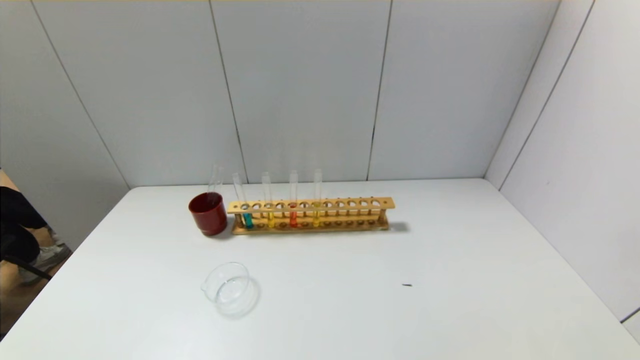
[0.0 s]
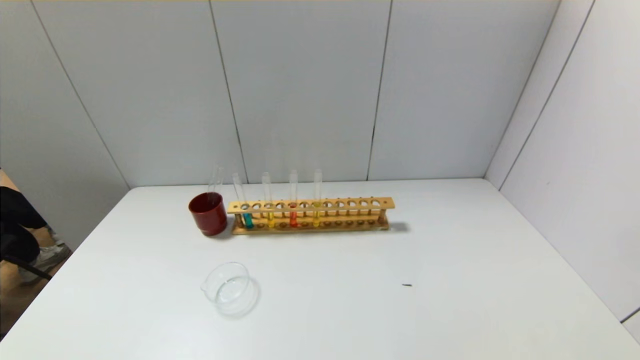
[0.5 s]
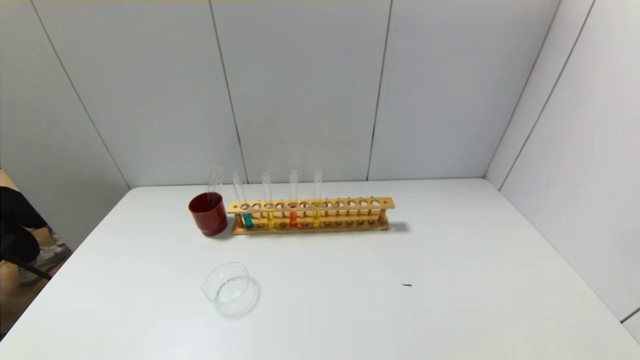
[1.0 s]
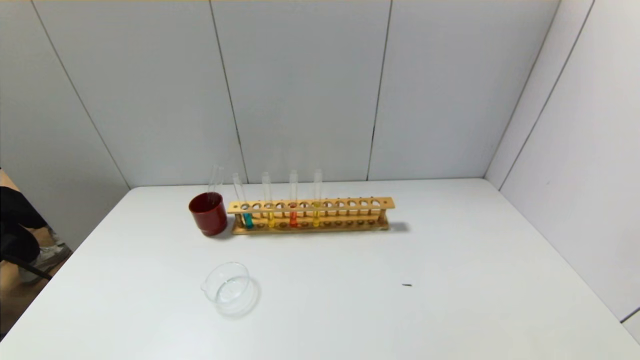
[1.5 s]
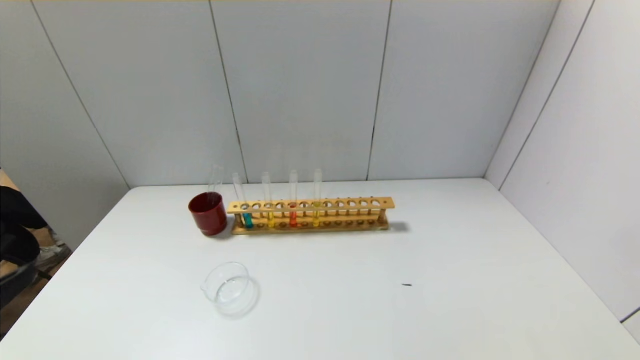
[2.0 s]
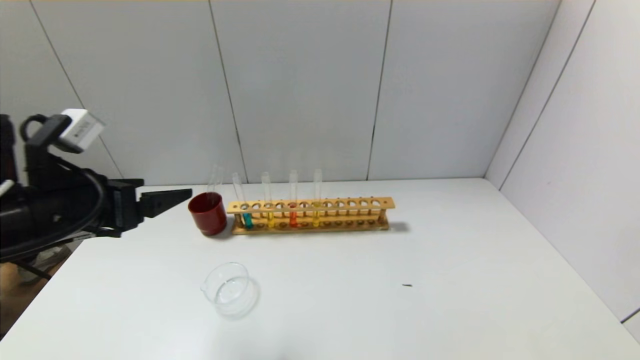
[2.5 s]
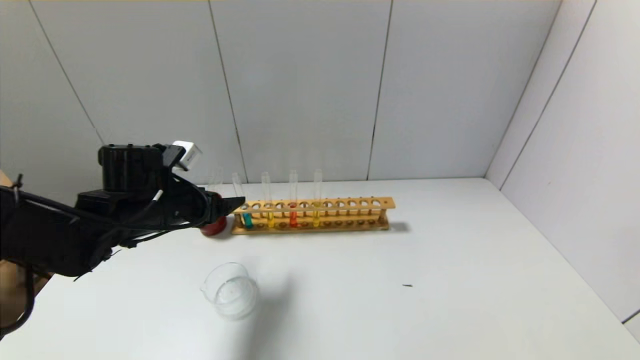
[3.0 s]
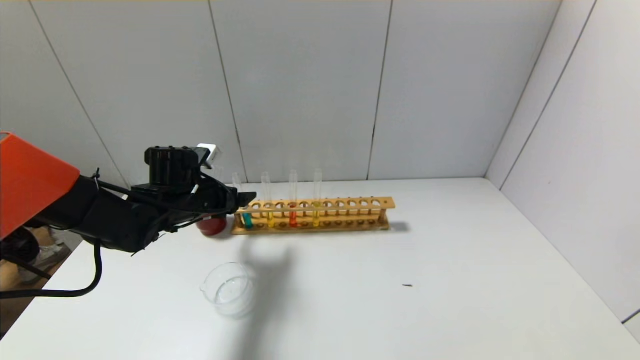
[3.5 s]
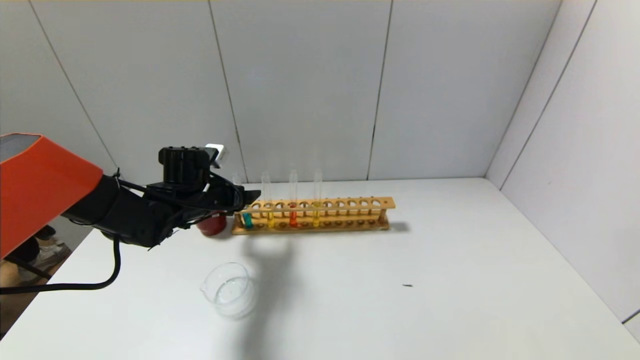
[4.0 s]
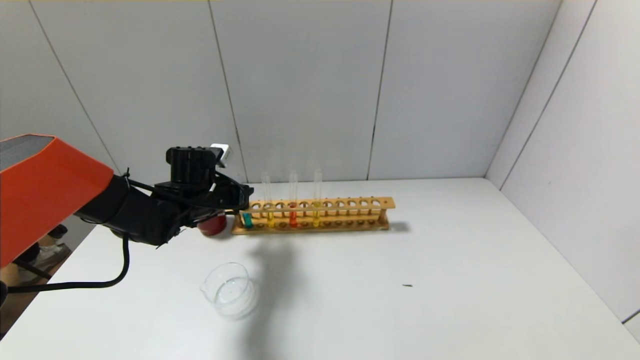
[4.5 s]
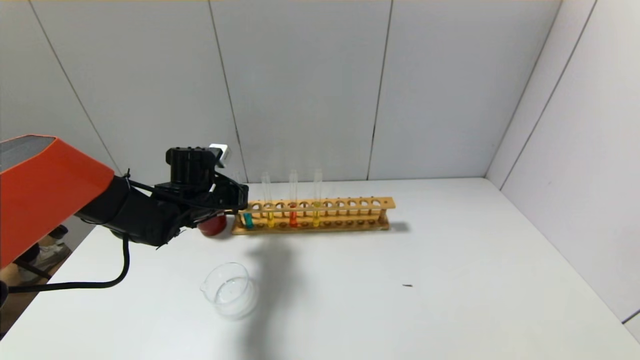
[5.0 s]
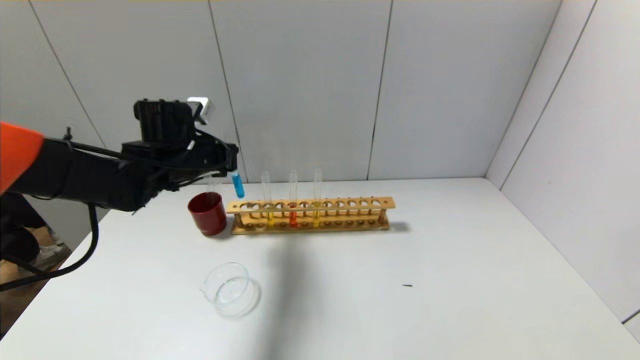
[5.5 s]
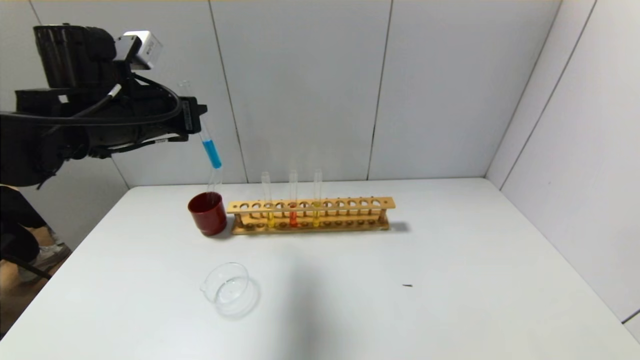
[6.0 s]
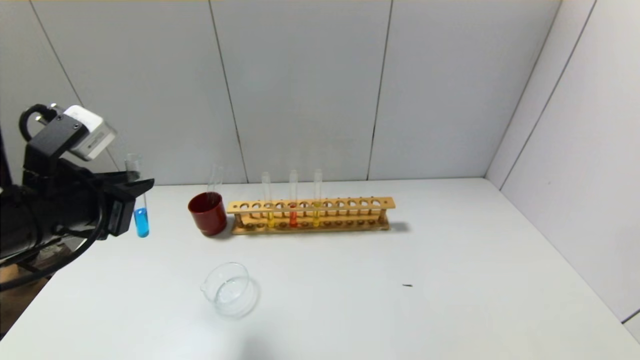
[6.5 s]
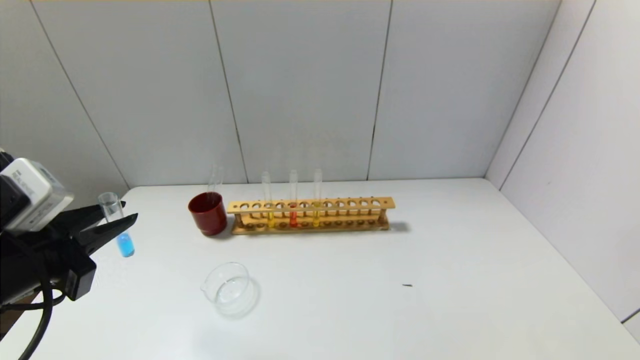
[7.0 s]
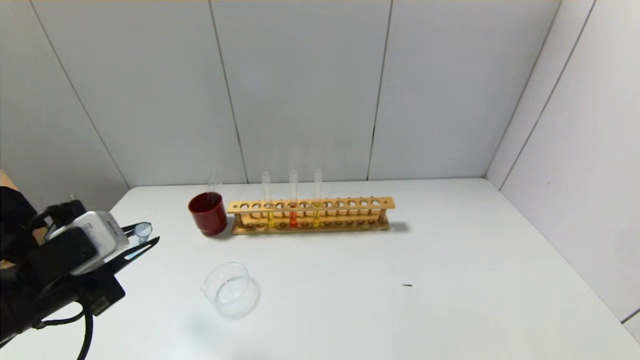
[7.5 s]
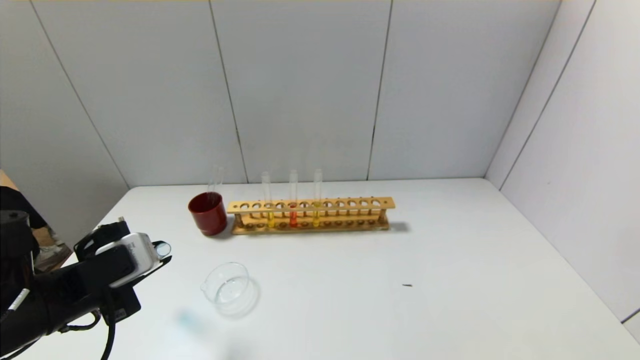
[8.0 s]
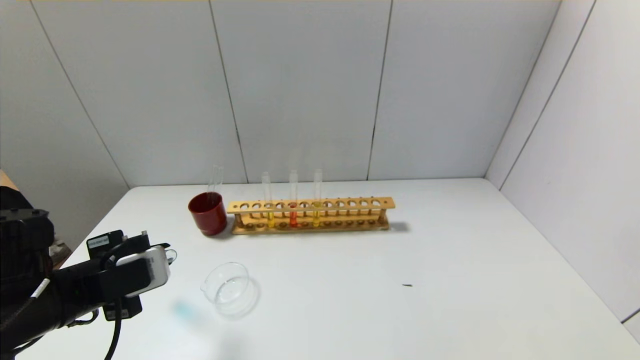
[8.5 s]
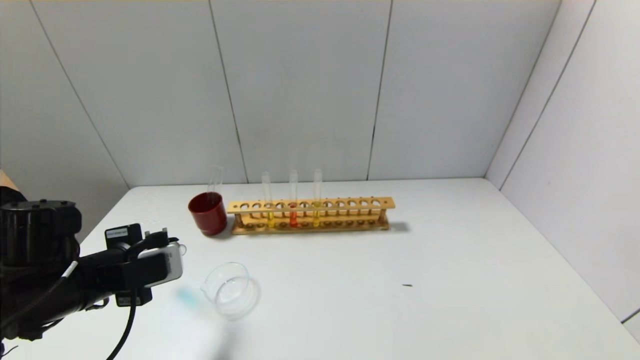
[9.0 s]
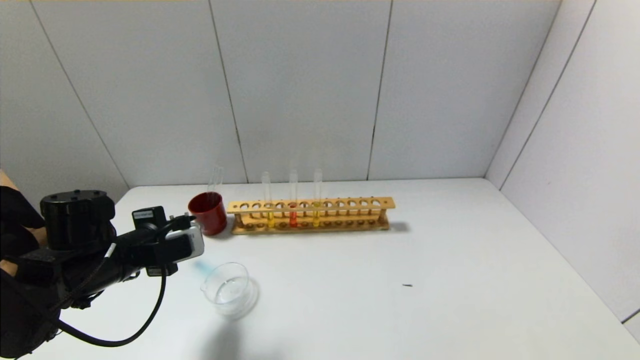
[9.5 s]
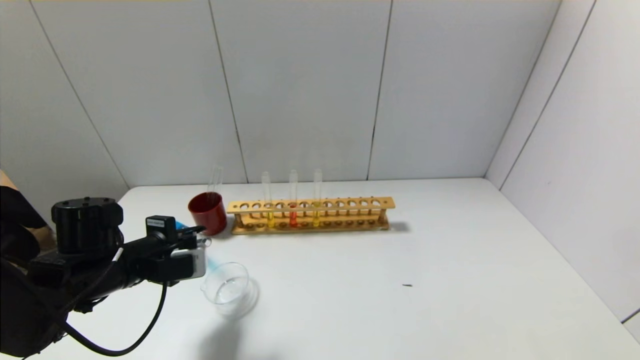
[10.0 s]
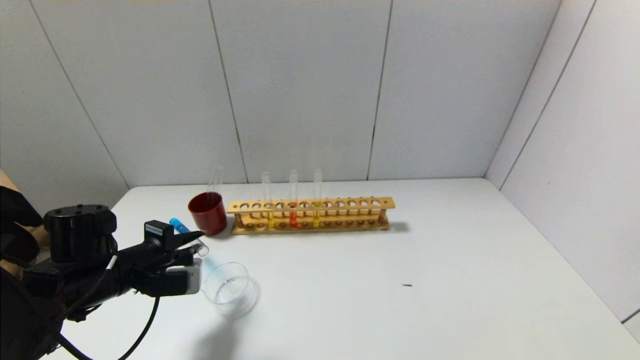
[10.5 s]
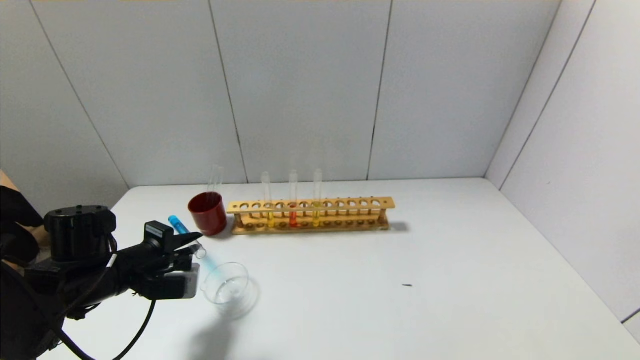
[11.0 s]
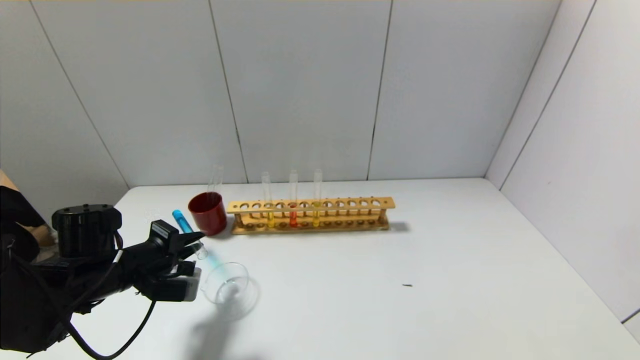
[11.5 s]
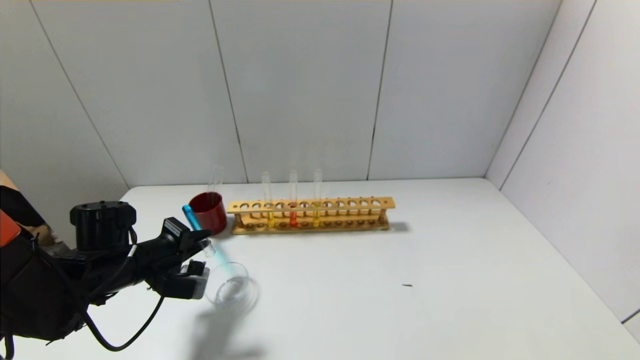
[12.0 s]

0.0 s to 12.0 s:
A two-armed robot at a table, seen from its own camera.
Step, 0.0 to 4.5 s: Grasp the blue reagent with the left gripper.
2.0 to 4.0 s: The left gripper travels forward by about 35 cm.
4.0 to 6.0 s: The left gripper travels upward by about 15 cm, and closes.
6.0 to 8.0 s: The left gripper shifts some 20 cm backward and downward.
8.0 to 10.0 s: The left gripper shifts approximately 10 cm forward.

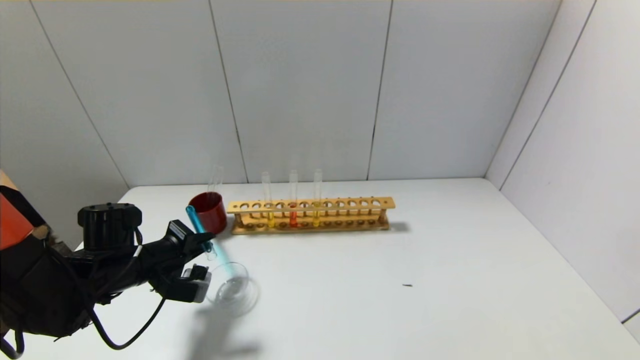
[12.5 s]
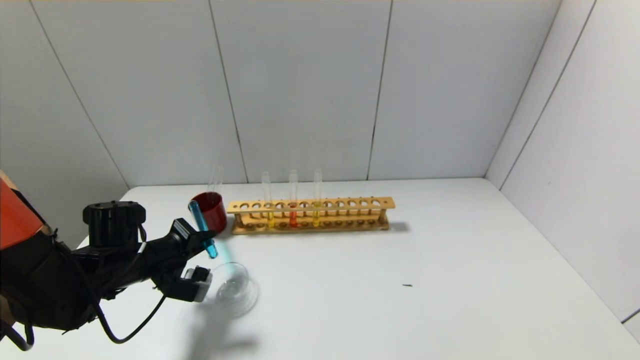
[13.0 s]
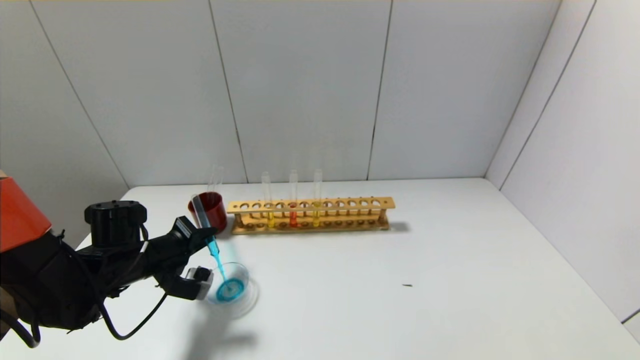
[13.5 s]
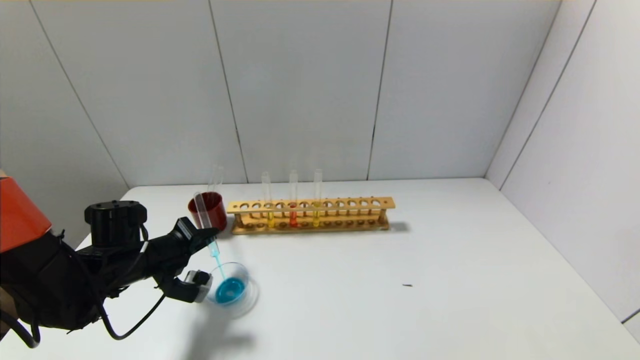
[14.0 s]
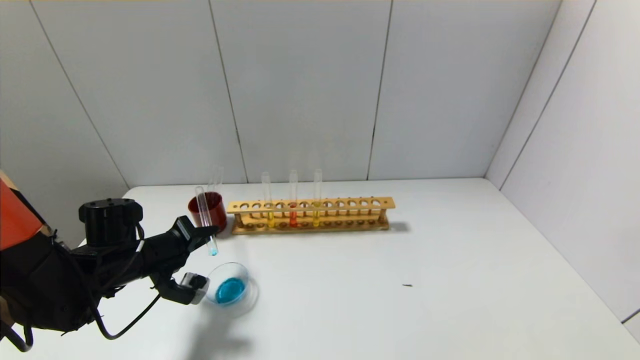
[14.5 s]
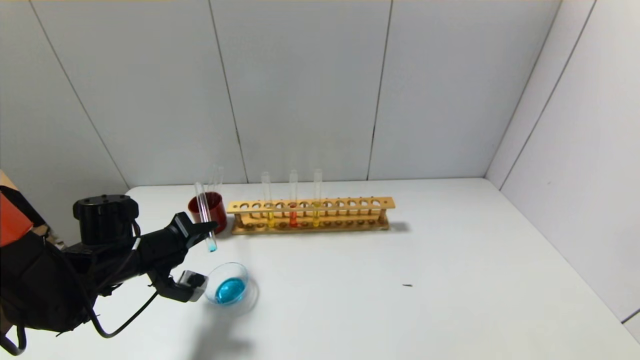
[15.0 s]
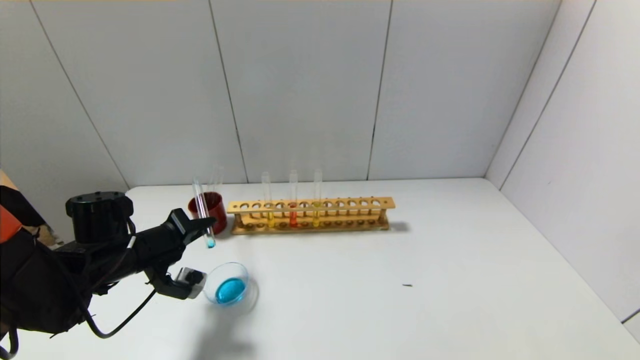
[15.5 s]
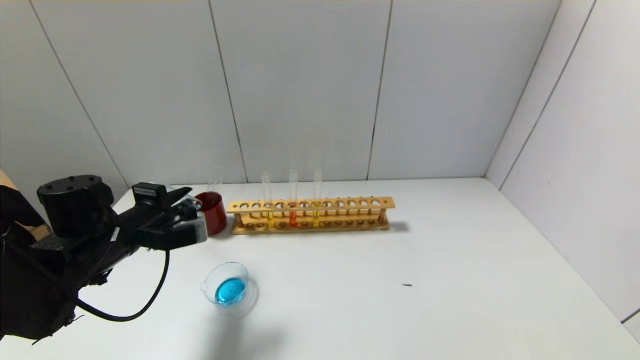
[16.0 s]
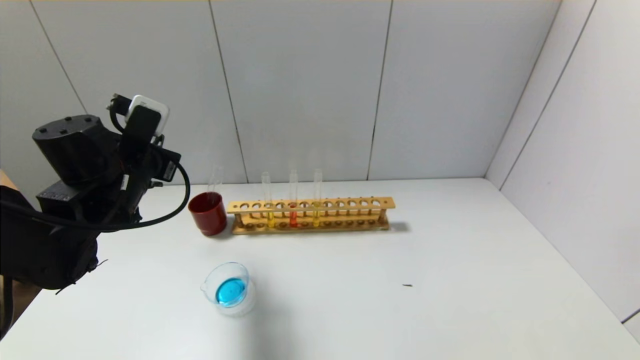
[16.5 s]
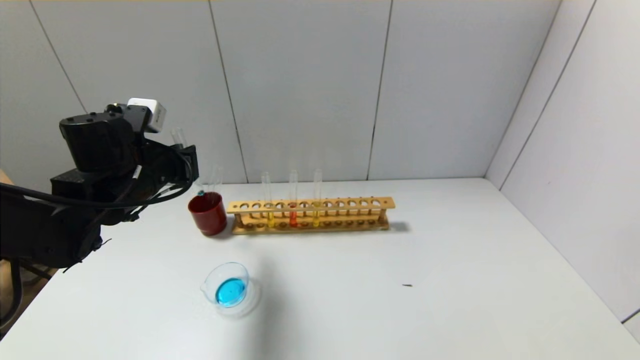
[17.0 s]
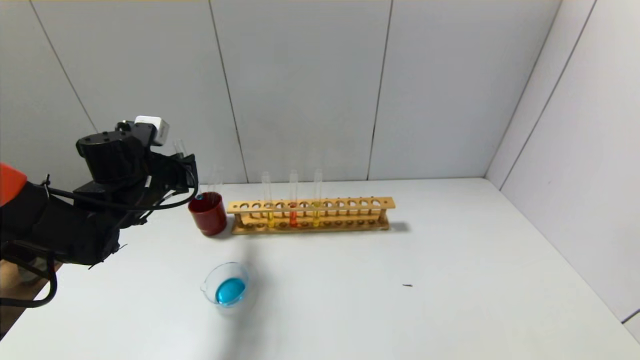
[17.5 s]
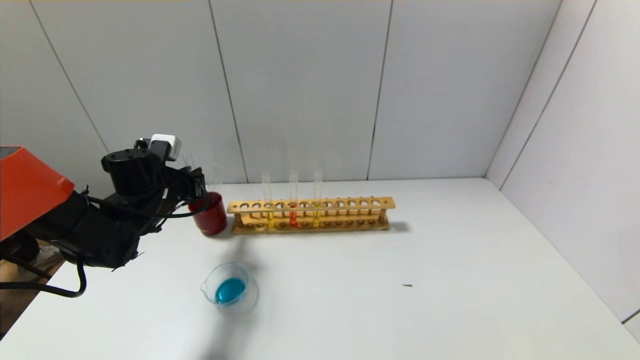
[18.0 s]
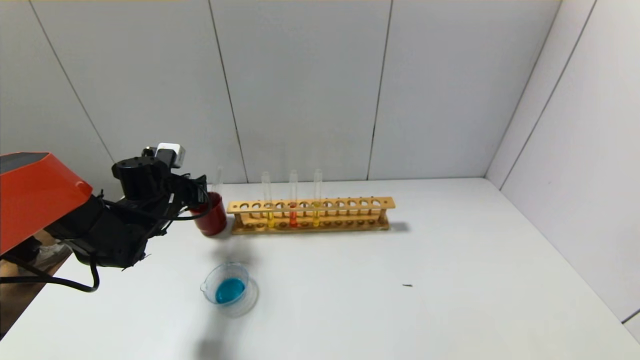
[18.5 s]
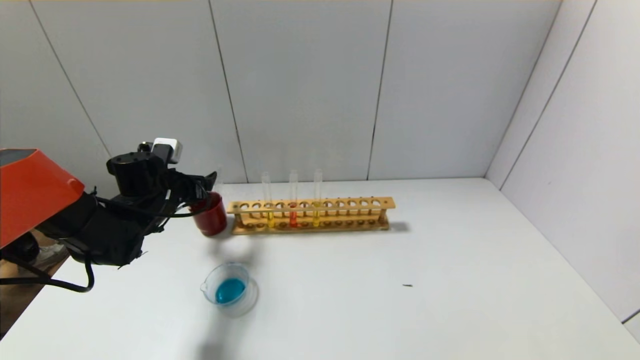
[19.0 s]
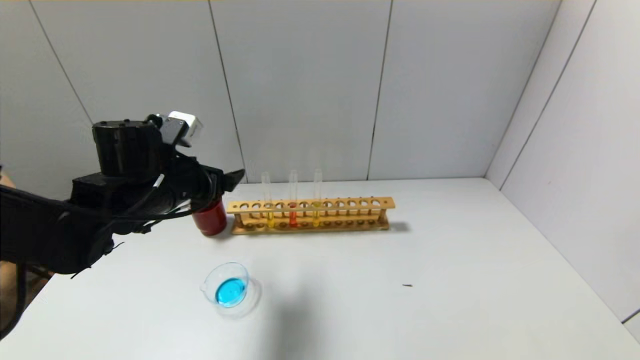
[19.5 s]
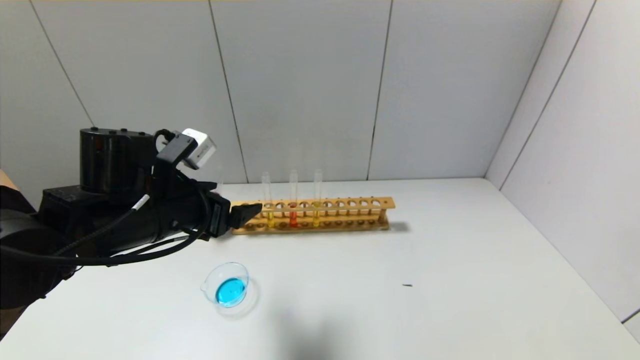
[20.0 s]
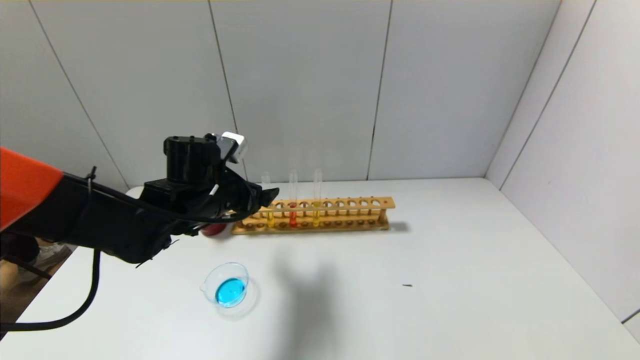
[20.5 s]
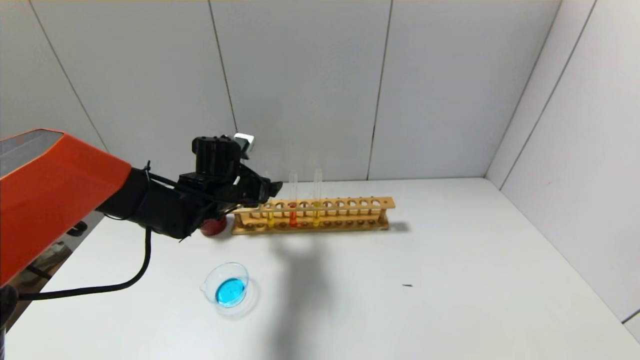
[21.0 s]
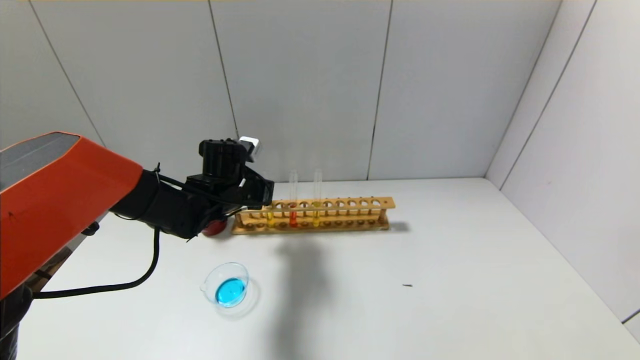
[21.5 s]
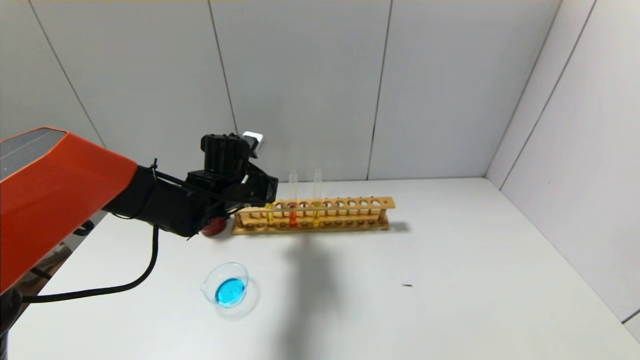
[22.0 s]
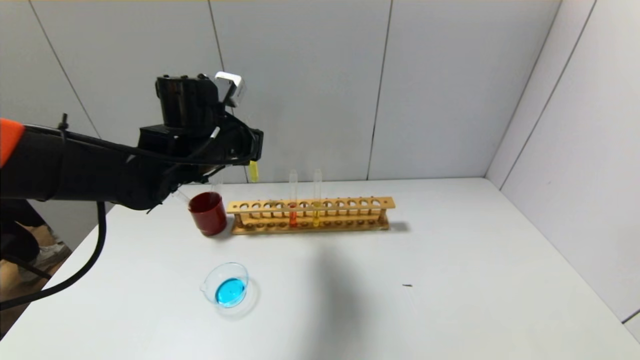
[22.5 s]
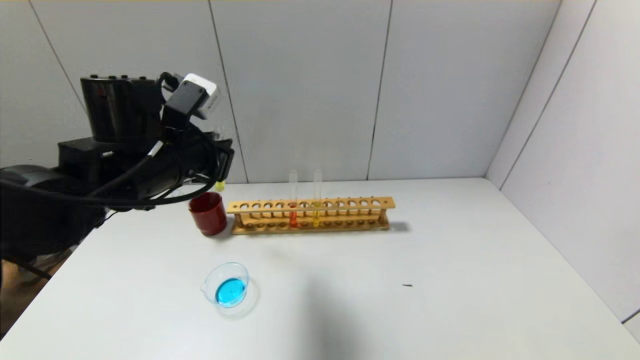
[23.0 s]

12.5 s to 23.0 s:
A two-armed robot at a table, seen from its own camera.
Step, 12.5 to 15.5 s: Pour the blue reagent into the graduated cylinder with the left gripper.
Step, 16.0 to 18.5 s: Place the test tube into the brown cup with the left gripper.
Step, 19.0 to 21.5 s: Grasp the yellow reagent with the left gripper.
12.5 to 14.5 s: There are only small adjustments of the grippers.
14.5 to 16.5 s: The left gripper moves upward, approximately 15 cm.
16.5 to 19.0 s: The left gripper shifts about 10 cm downward and forward, and opens its fingers.
19.0 to 21.0 s: The left gripper travels to the right by about 10 cm, and goes backward and returns, some 15 cm each way.
21.0 to 23.0 s: The left gripper travels backward and upward by approximately 15 cm, and closes.
